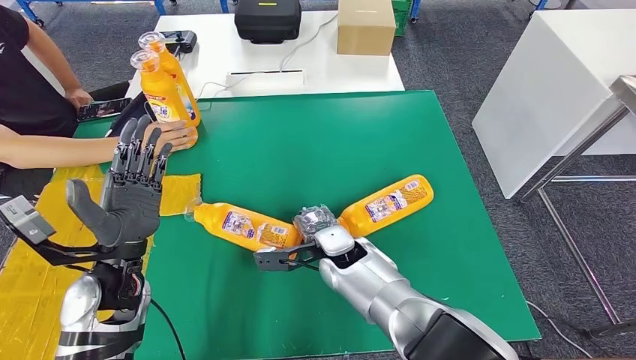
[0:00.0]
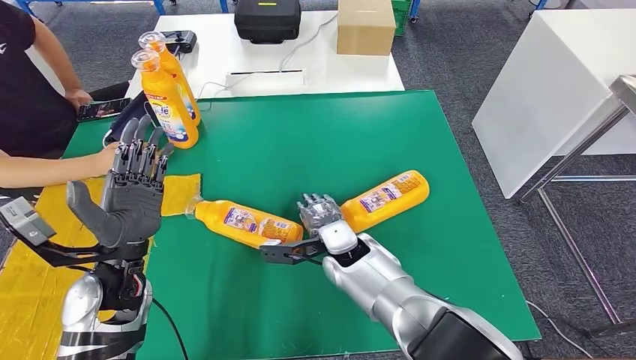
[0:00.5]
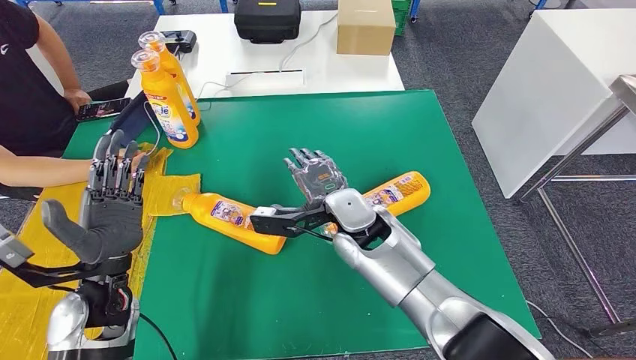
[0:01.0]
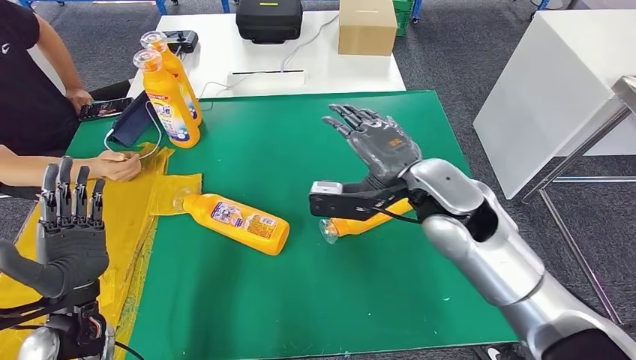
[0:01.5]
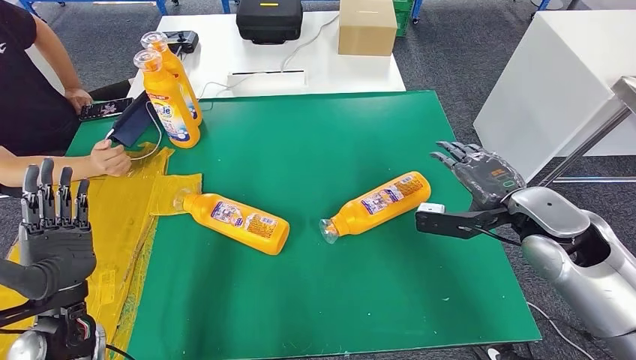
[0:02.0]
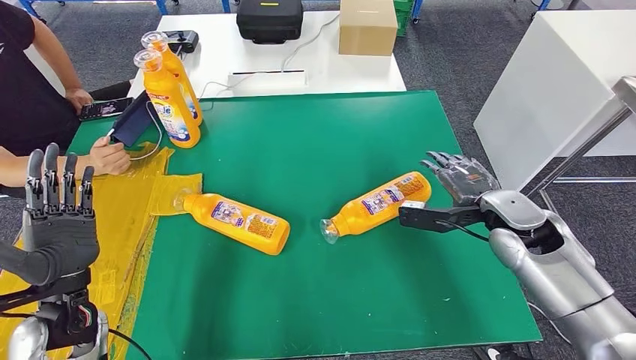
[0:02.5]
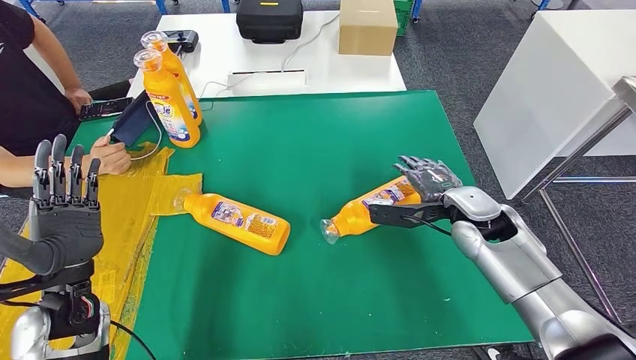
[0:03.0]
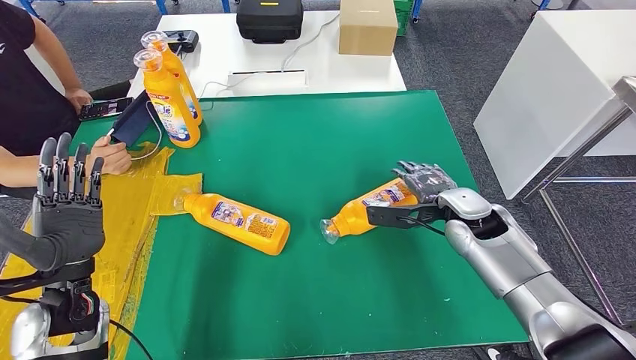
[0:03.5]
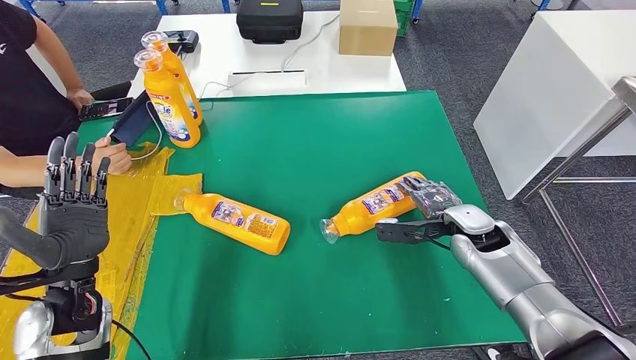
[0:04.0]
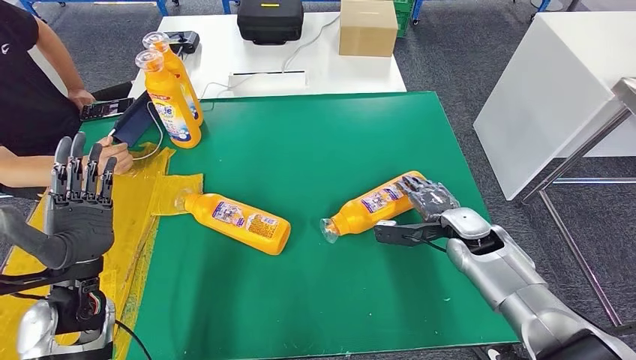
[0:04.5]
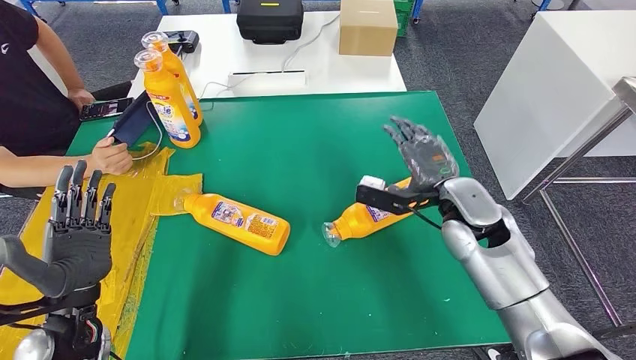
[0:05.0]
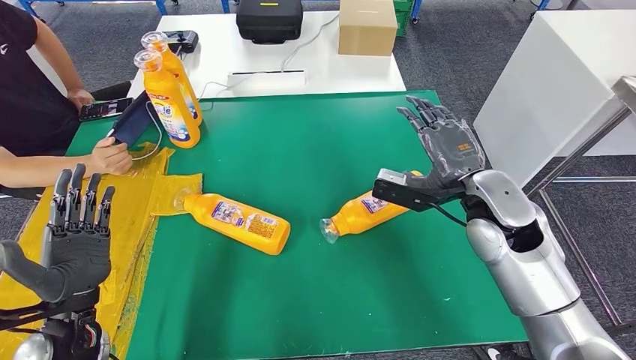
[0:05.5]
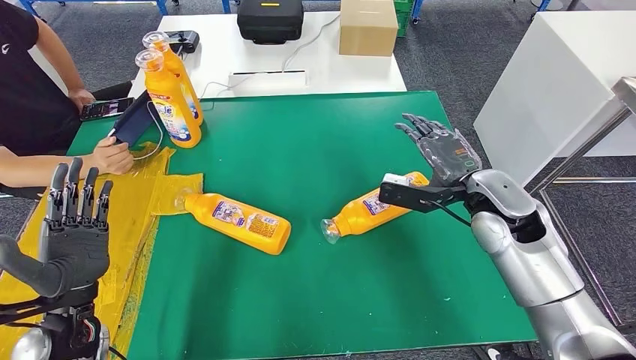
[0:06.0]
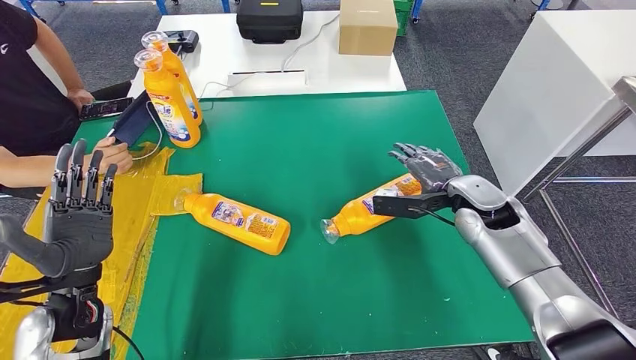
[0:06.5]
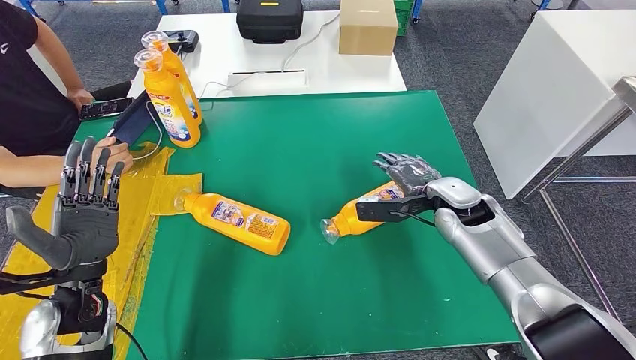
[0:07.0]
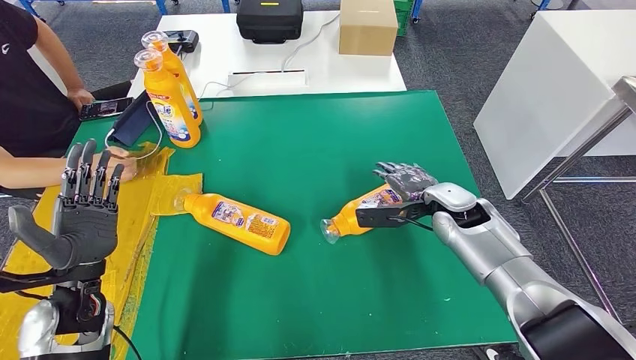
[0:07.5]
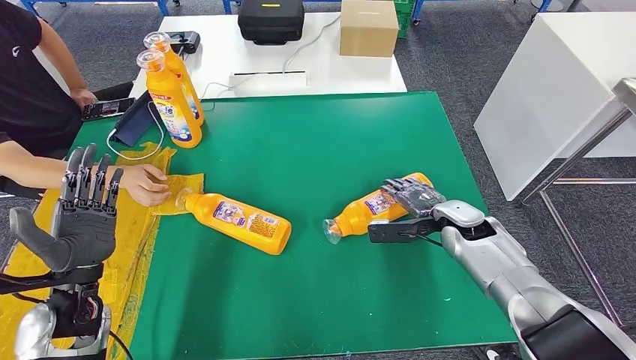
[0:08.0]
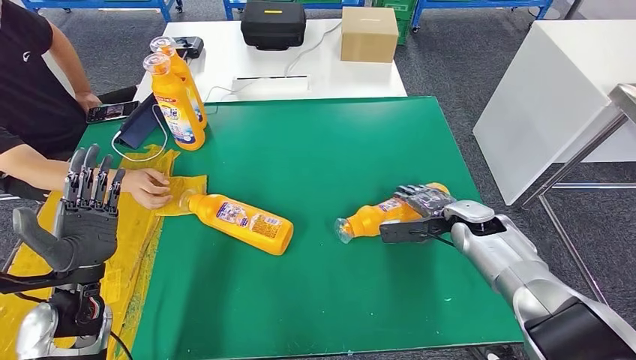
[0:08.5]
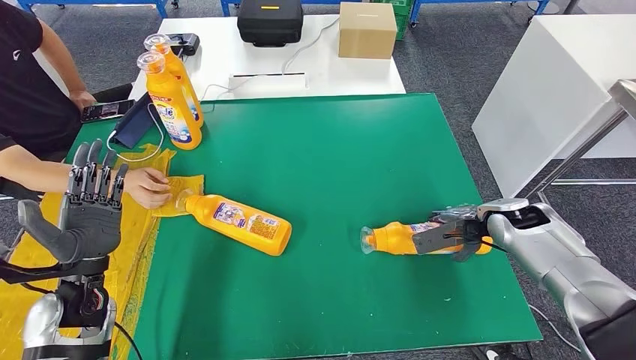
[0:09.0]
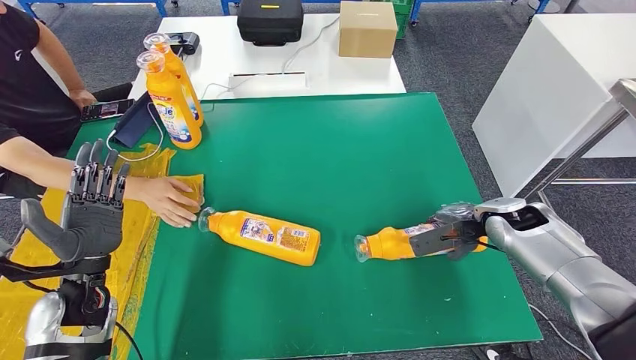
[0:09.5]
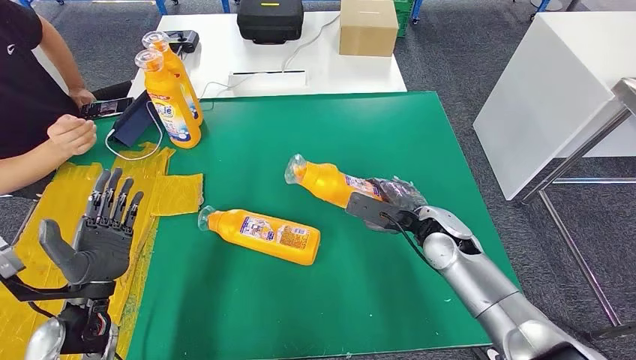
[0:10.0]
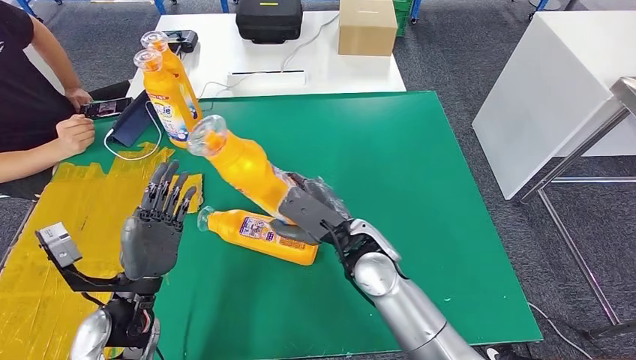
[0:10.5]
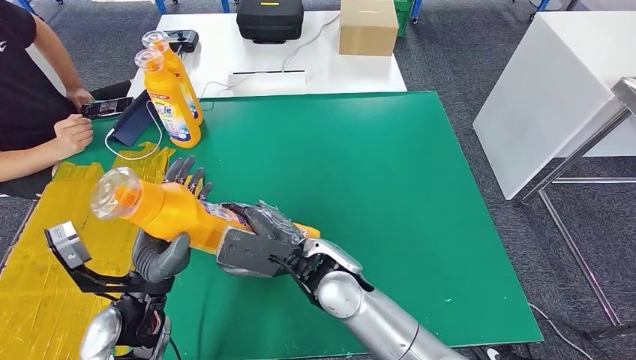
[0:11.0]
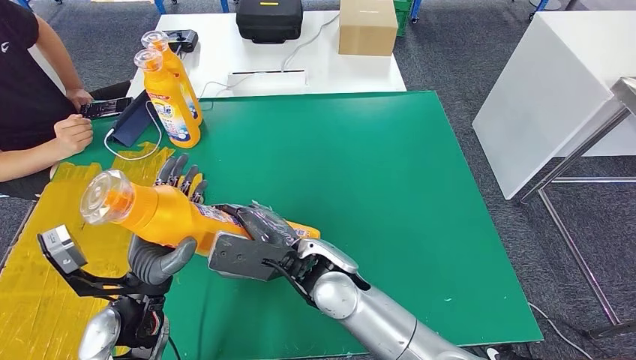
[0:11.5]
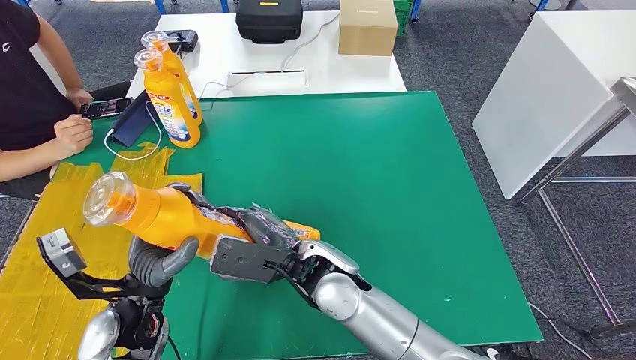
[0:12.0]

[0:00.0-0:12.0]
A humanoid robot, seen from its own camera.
0:02.0 to 0:04.0: The right hand shifts roughly 15 cm downward and forward.
0:04.0 to 0:06.0: The right hand moves upward, approximately 10 cm.
0:06.0 to 0:08.0: The right hand travels downward by roughly 15 cm.

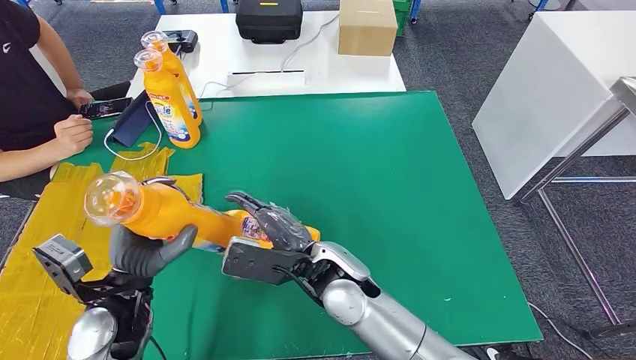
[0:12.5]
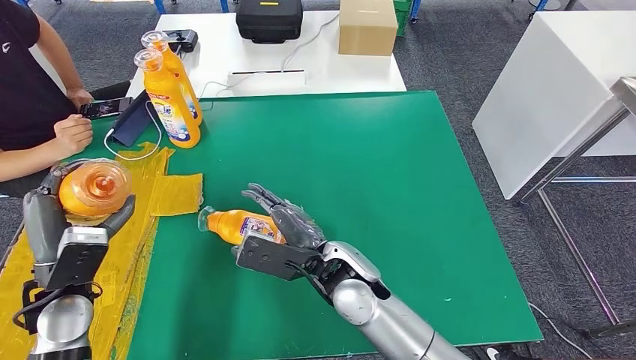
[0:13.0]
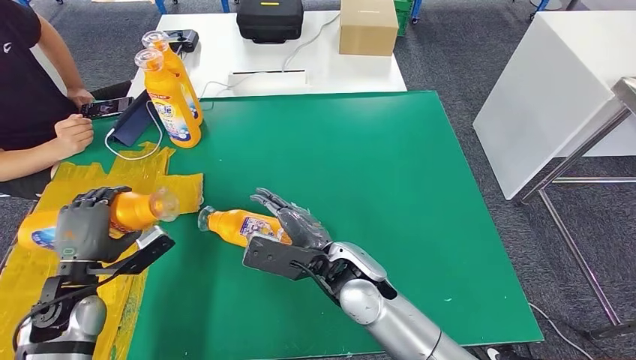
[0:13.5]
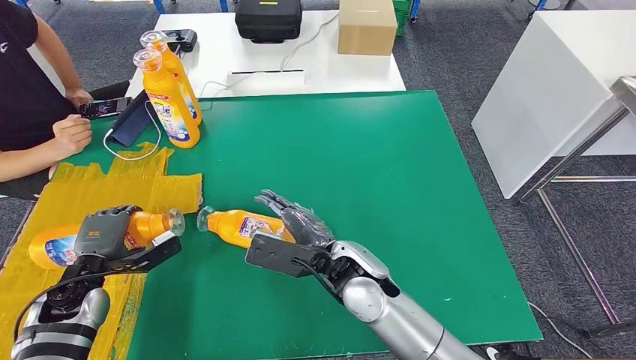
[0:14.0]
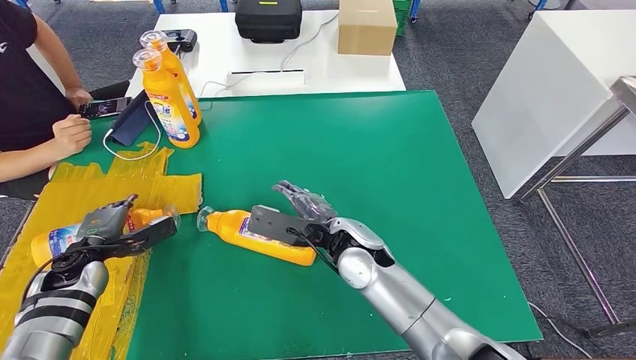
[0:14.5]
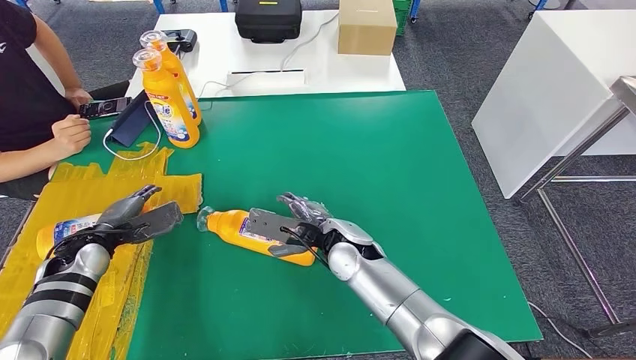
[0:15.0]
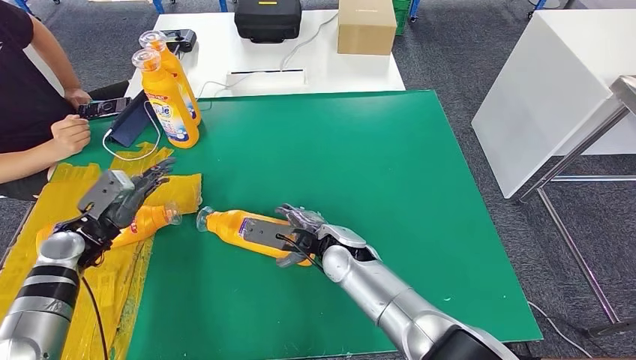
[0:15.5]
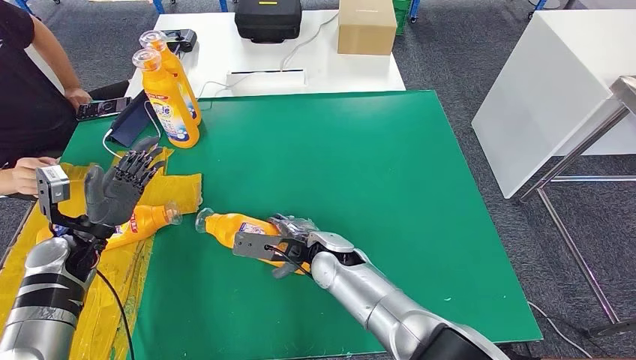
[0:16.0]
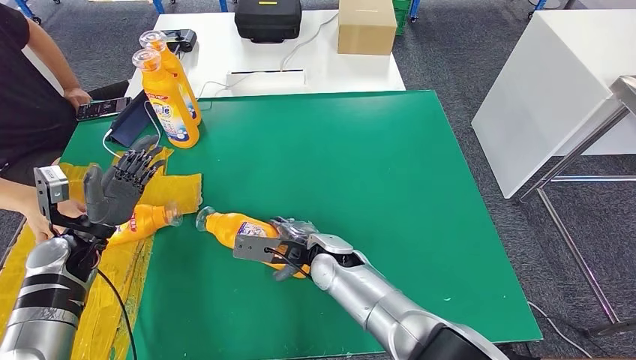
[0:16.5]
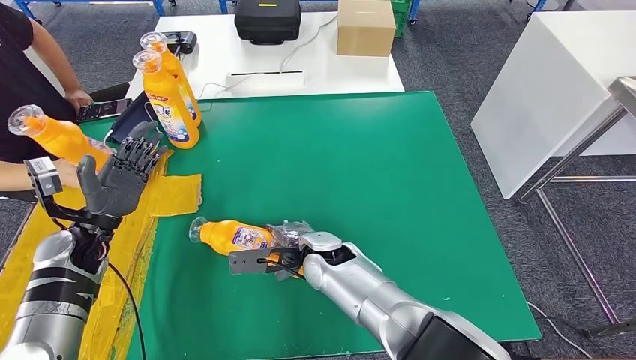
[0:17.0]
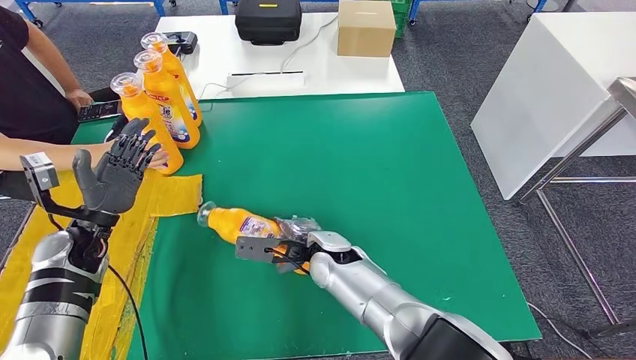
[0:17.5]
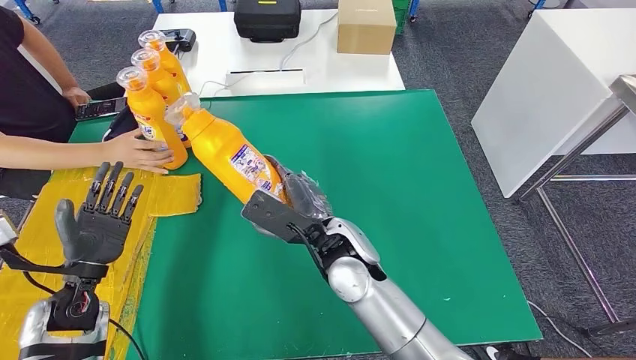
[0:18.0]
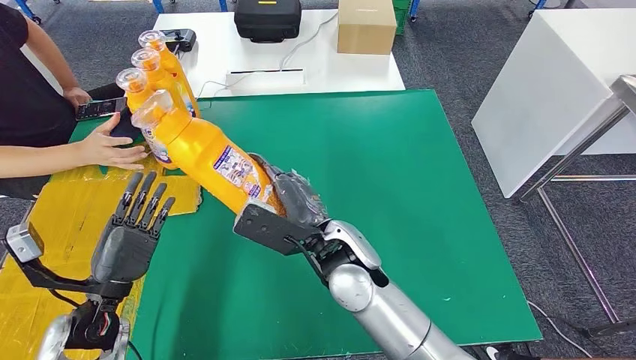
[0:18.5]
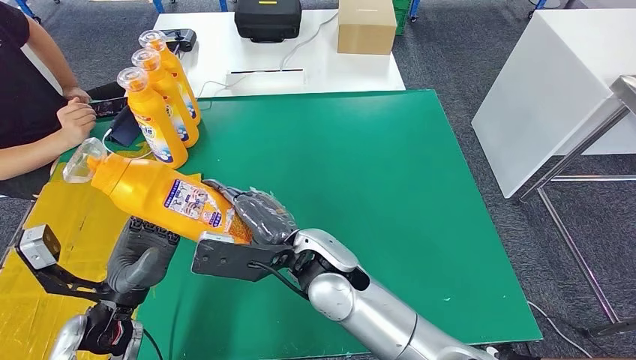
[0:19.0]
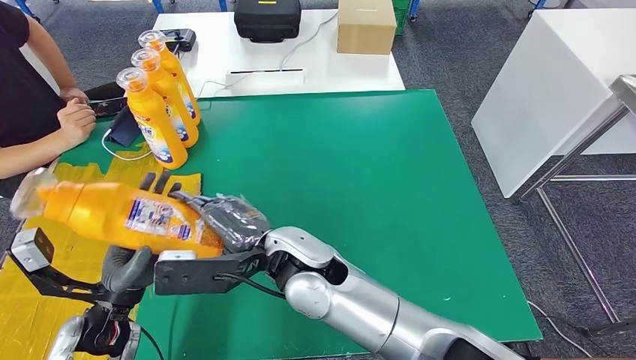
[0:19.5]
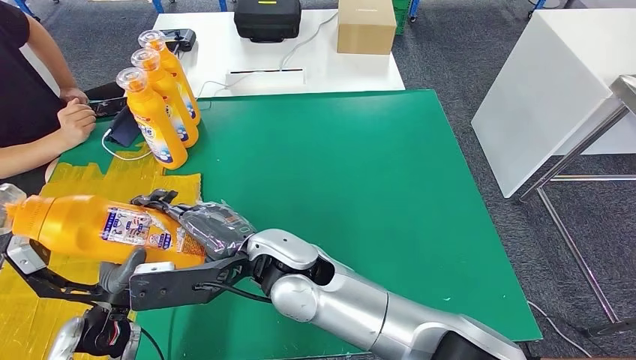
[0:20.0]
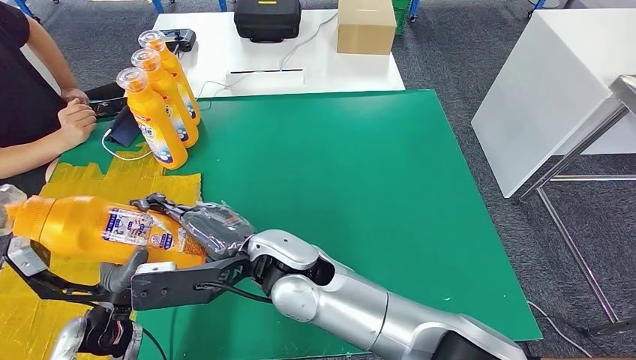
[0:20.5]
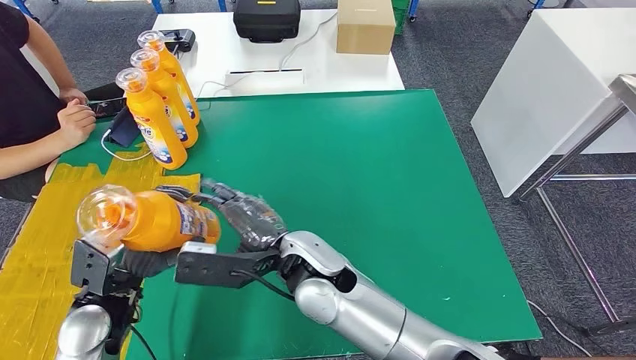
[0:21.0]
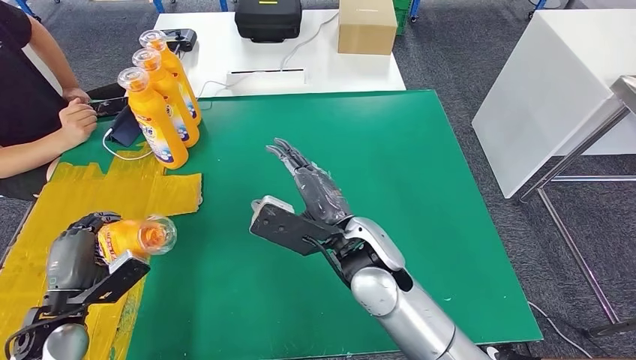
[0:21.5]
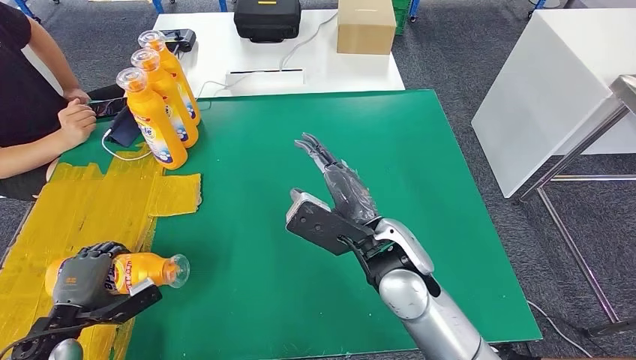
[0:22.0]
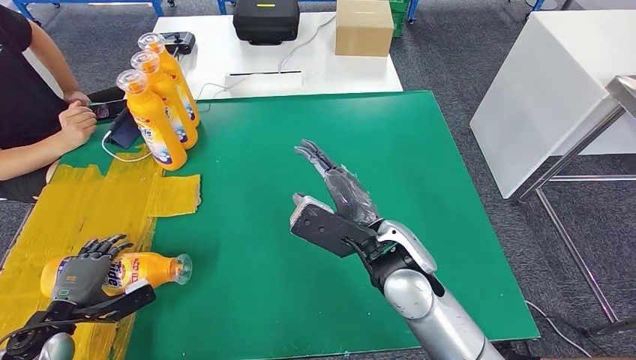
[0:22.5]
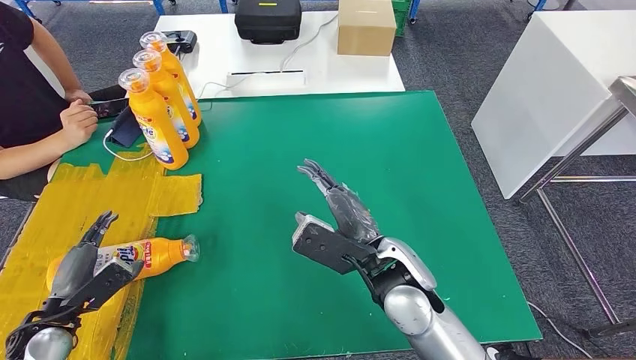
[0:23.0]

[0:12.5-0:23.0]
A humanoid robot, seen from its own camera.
Step, 0:13.0 to 0:16.0: Flip the fast-moving consumer goods bottle to the front side.
Step, 0:16.5 to 0:20.0: Pick up the fast-moving consumer goods bottle from the table.
Step, 0:21.0 to 0:23.0: Flip the fast-moving consumer goods bottle to the front side.
0:12.5 to 0:14.5: The right hand is displaced forward by approximately 5 cm; the left hand shifts roughly 20 cm to the left, forward and downward.
0:14.5 to 0:16.5: The right hand heads downward, covering about 5 cm.
